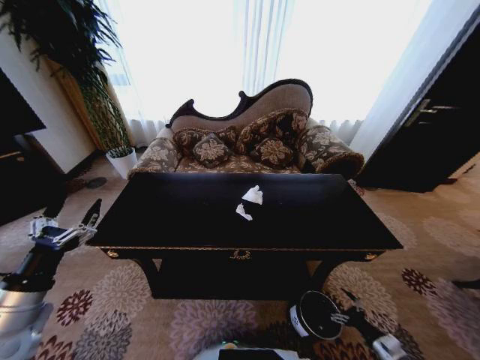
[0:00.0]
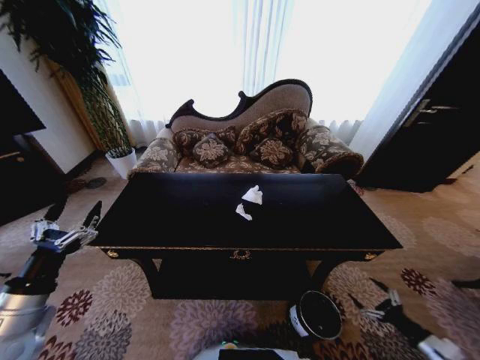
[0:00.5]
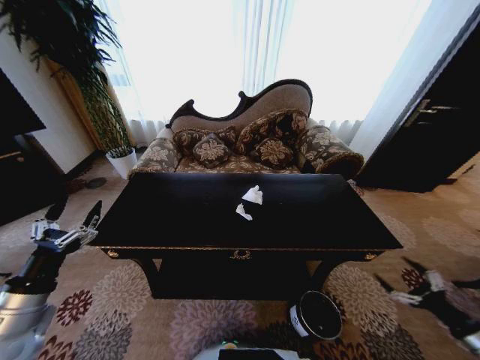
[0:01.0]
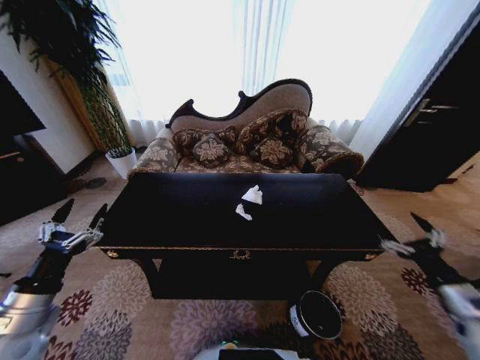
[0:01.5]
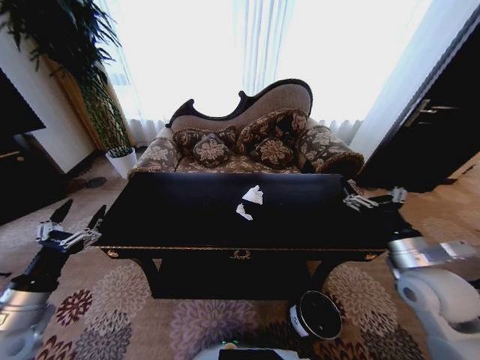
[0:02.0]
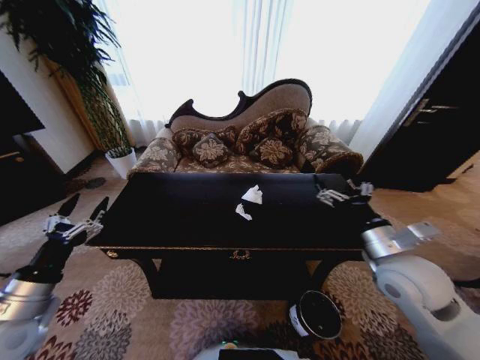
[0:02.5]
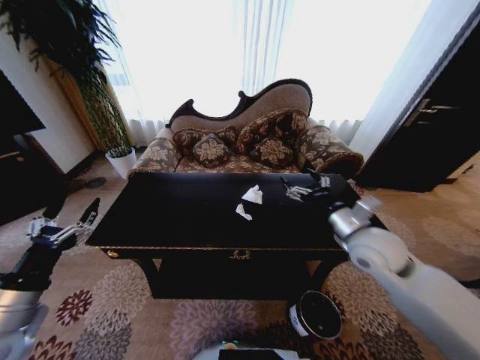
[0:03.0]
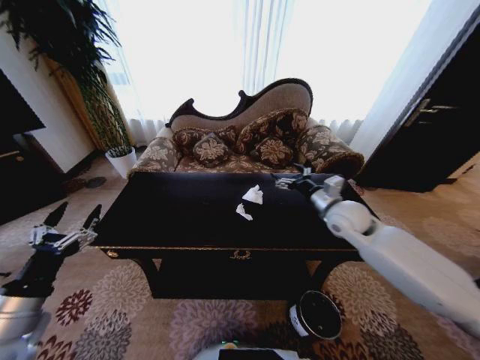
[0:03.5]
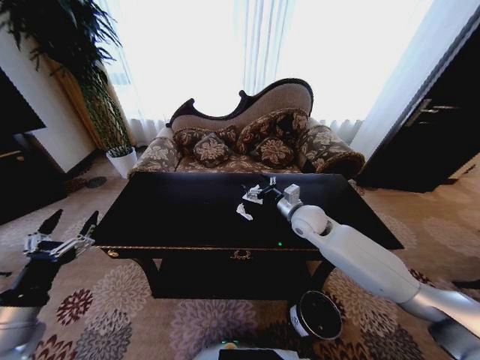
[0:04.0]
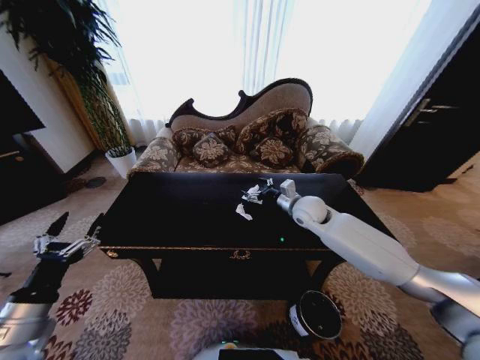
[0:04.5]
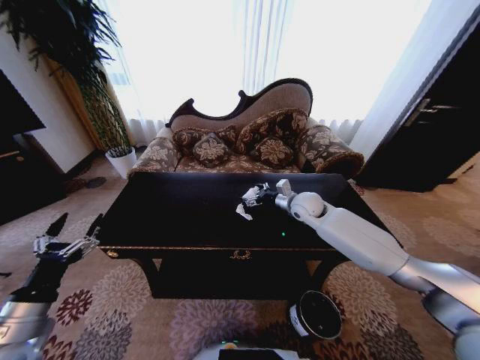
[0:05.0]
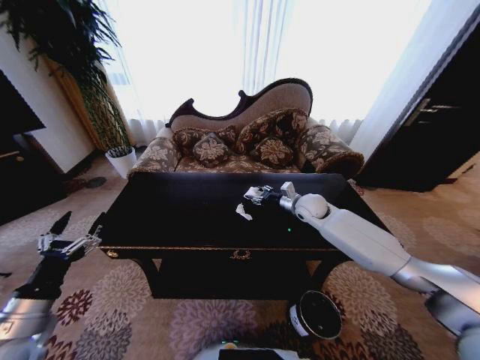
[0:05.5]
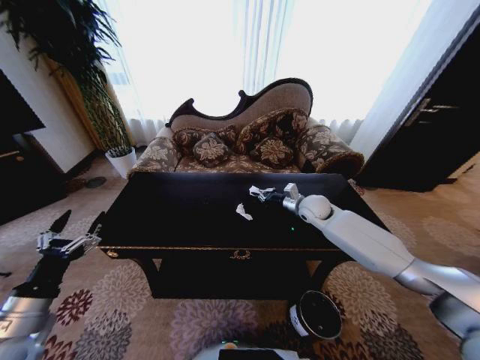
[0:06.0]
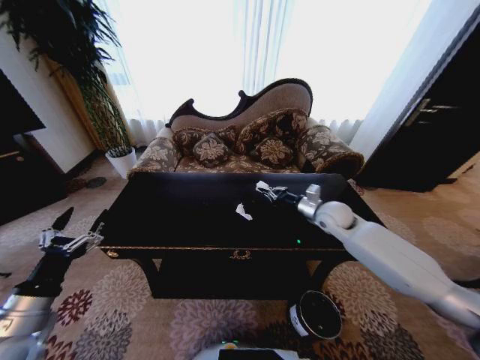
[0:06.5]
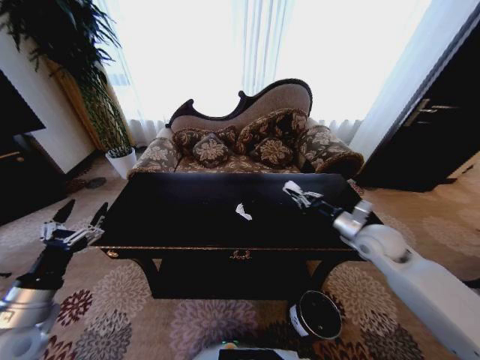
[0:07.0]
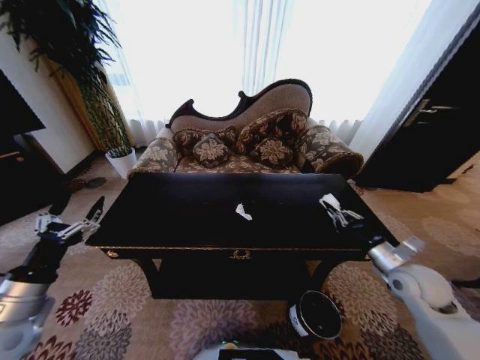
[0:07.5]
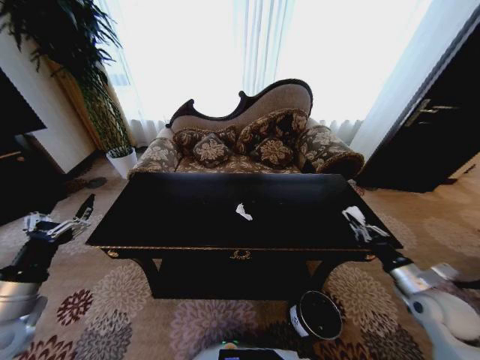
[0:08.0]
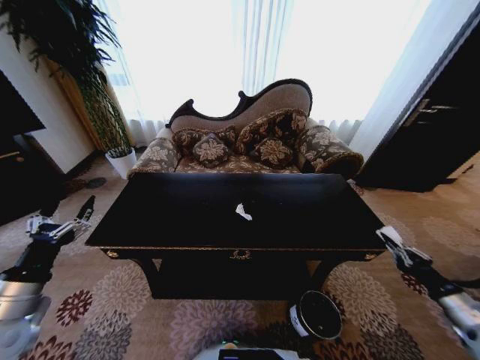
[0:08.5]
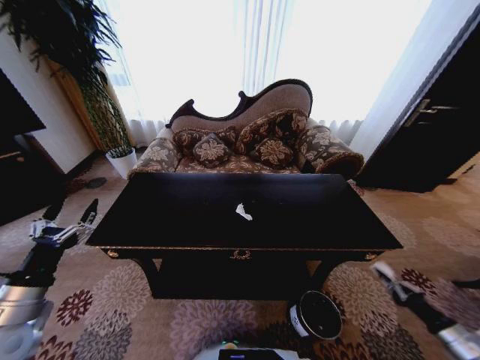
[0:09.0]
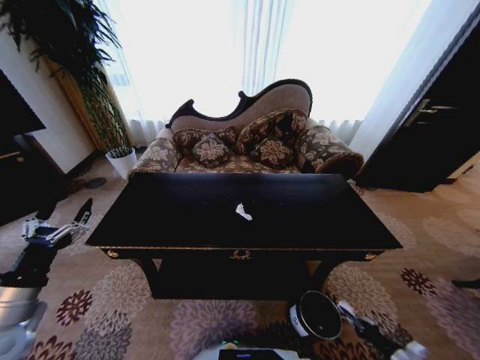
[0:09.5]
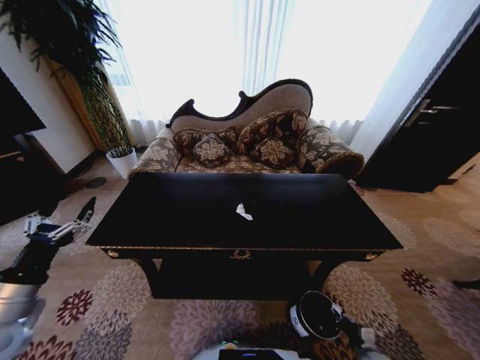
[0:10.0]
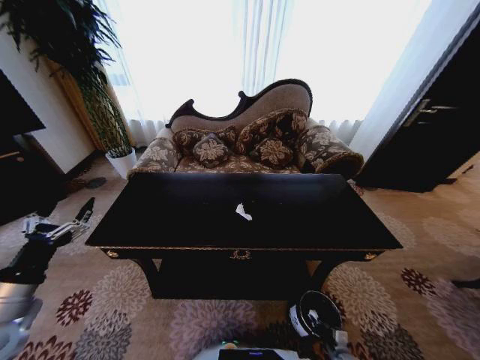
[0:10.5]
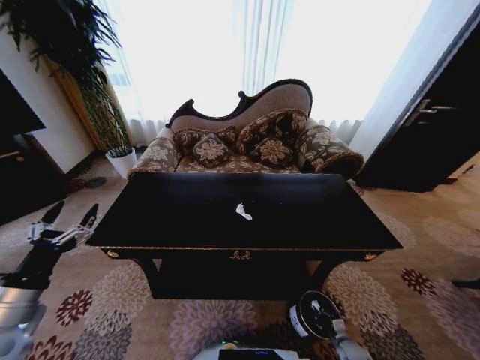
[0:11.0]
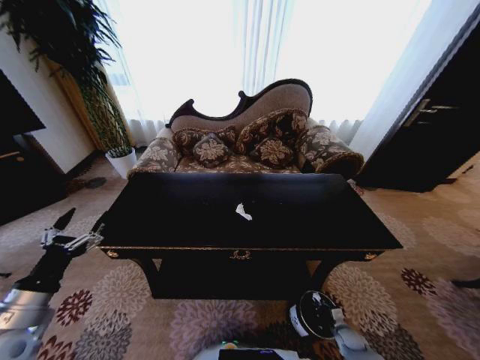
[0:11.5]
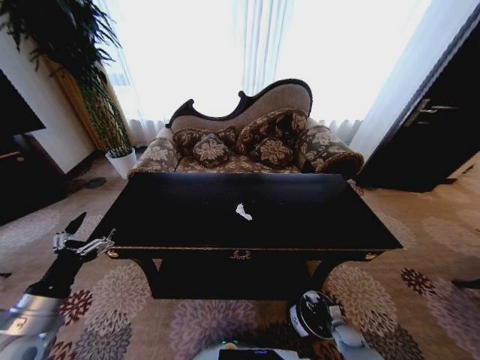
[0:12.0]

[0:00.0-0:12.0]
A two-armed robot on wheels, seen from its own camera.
Task of the whole recording: Move to the front of the table and place the trash on the table into the trash bin.
0:00.0 to 0:02.0: The right gripper shifts some 35 cm upward.
0:02.0 to 0:04.0: The right gripper goes roughly 25 cm forward and to the left.
0:04.0 to 0:06.0: The right gripper goes roughly 10 cm forward and to the right, and closes its fingers.
0:06.0 to 0:08.0: The right gripper shifts some 35 cm backward and to the right.
0:08.0 to 0:10.0: The right gripper moves downward, some 30 cm.
0:10.0 to 0:12.0: The right gripper goes about 10 cm forward, and opens.

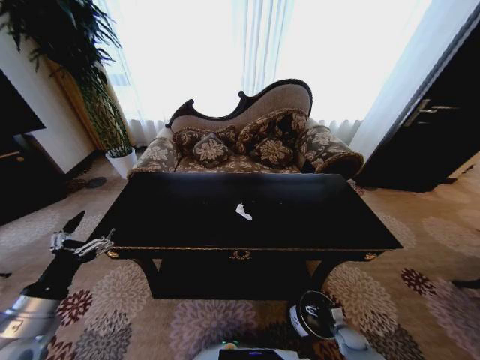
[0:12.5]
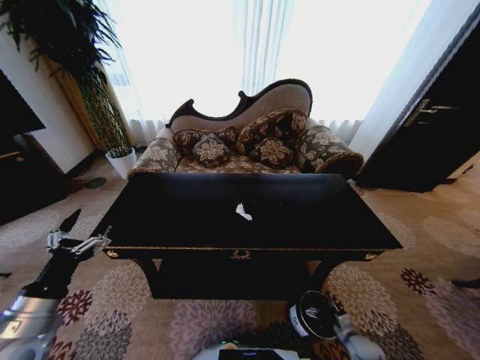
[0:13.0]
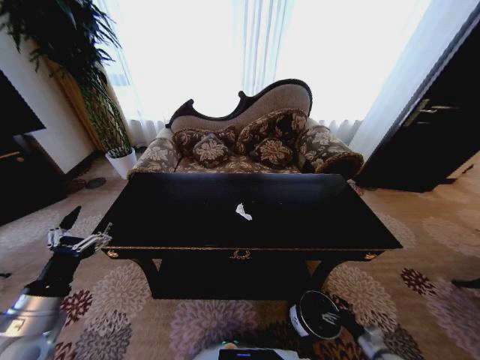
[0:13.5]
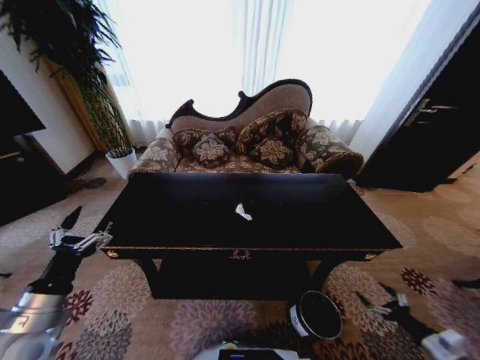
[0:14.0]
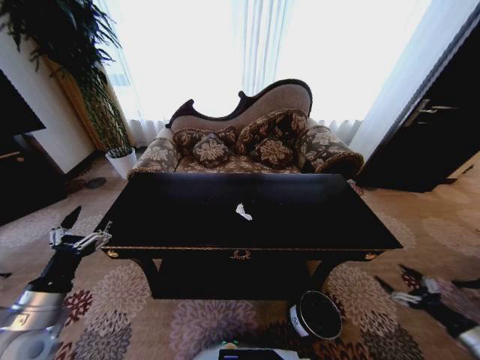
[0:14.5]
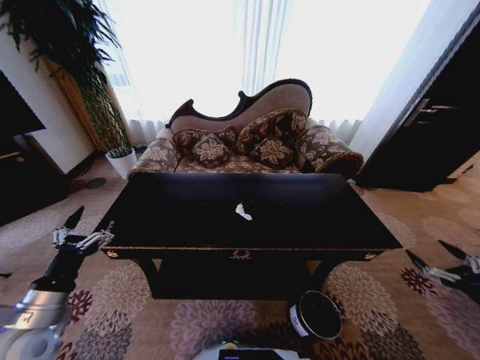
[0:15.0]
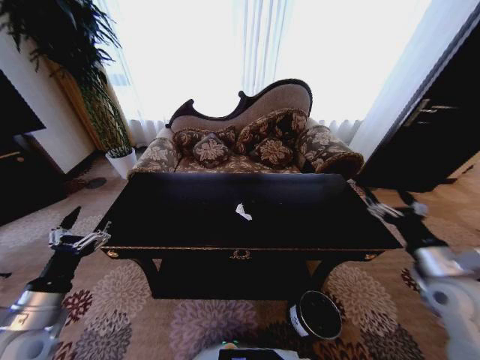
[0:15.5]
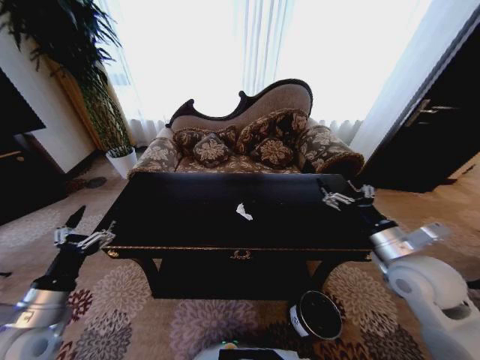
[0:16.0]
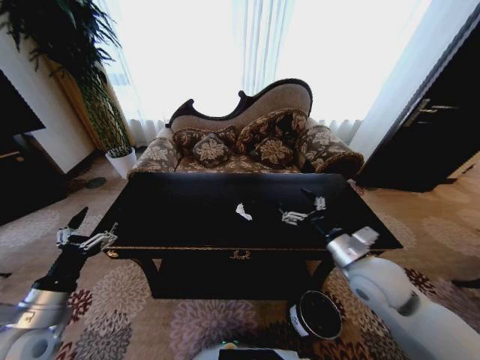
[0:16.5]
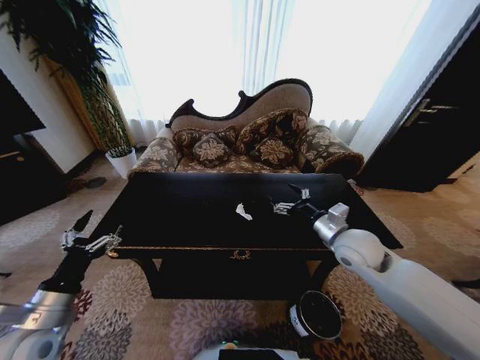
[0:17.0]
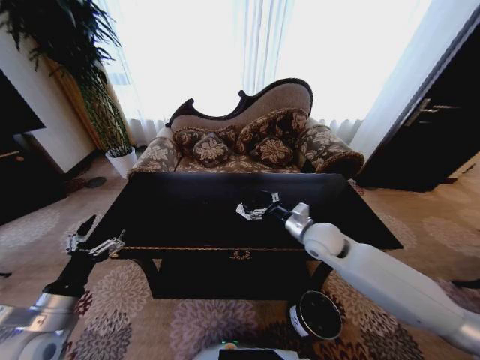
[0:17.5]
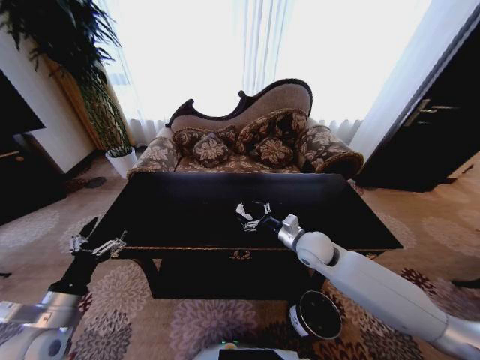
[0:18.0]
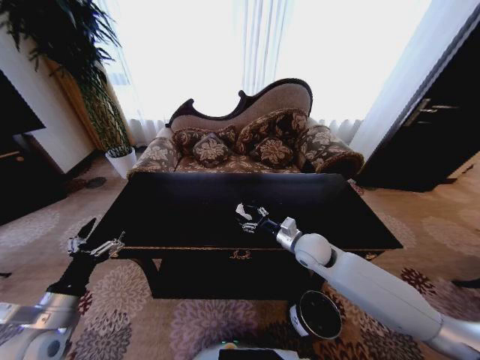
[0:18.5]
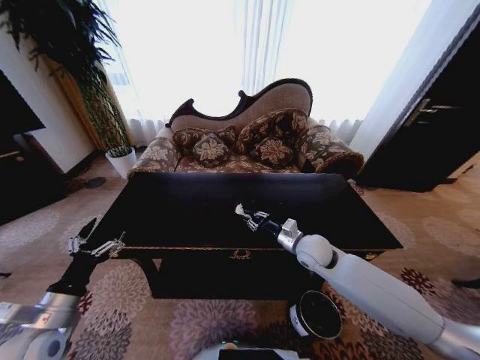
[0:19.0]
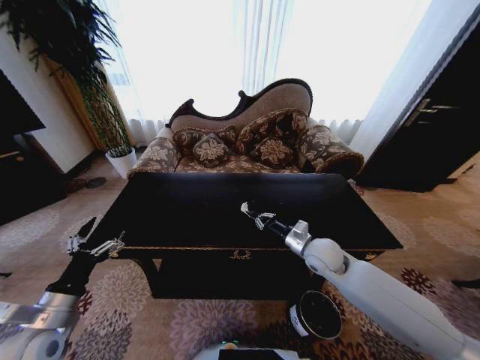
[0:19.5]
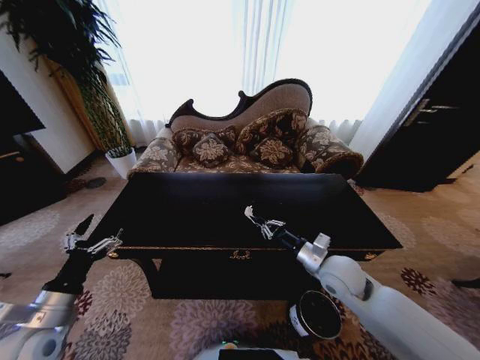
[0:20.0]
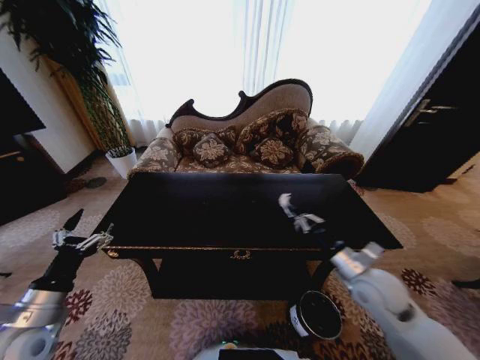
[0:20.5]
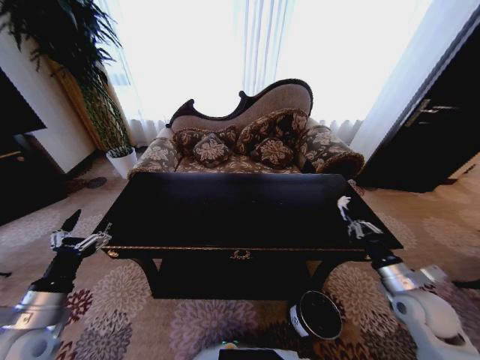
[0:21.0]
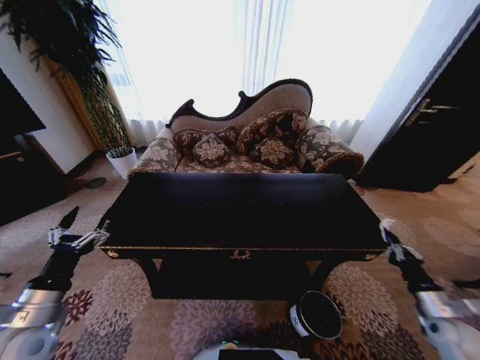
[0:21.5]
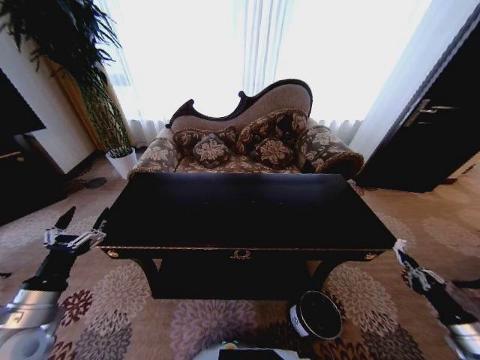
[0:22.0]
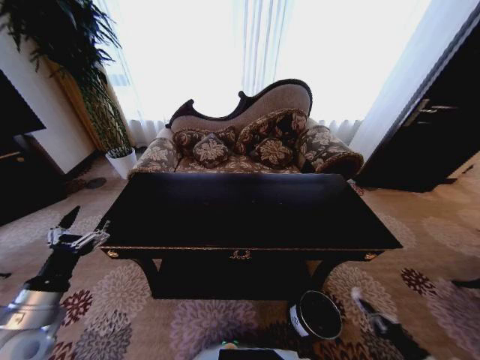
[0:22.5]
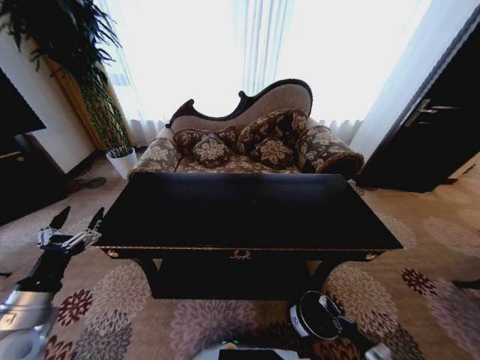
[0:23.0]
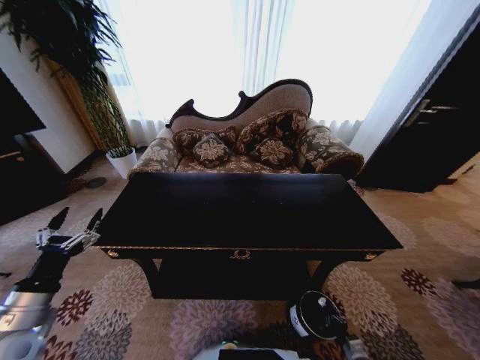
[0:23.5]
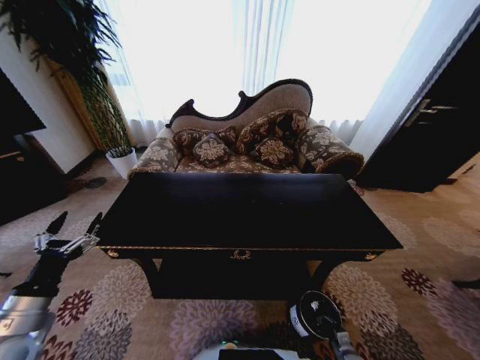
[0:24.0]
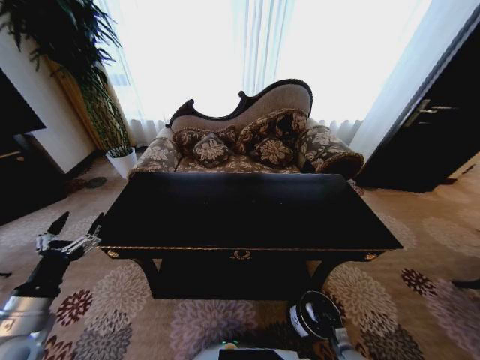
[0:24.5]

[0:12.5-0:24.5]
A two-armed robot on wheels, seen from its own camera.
Task of the whole recording: Move to the front of the table and place the trash on the table into the trash bin.
0:12.5 to 0:14.5: The right gripper goes about 35 cm upward and to the right.
0:14.5 to 0:16.5: The right gripper is displaced to the left, upward and forward by roughly 40 cm.
0:16.5 to 0:18.5: The right gripper goes some 15 cm forward, downward and to the left.
0:18.5 to 0:20.5: The right gripper moves backward and to the right, some 15 cm, and closes.
0:20.5 to 0:22.5: The right gripper goes roughly 40 cm to the right, downward and backward.
0:22.5 to 0:24.5: The right gripper goes some 25 cm to the left, downward and forward.

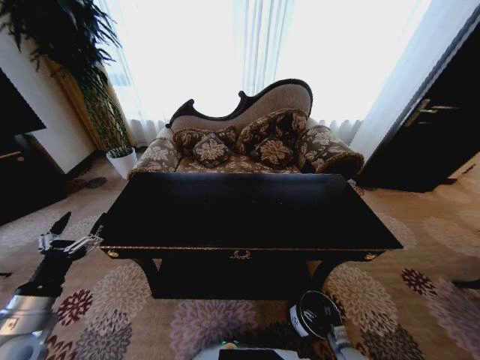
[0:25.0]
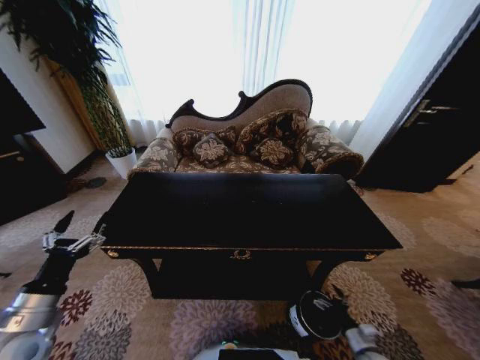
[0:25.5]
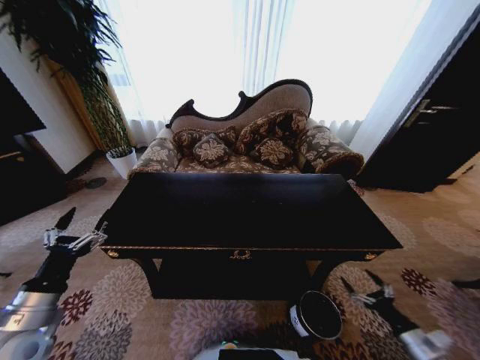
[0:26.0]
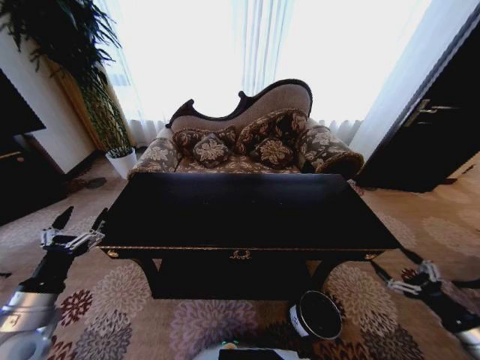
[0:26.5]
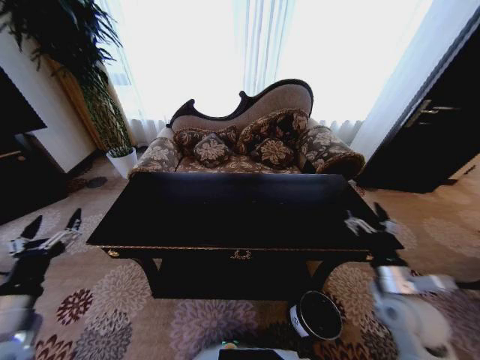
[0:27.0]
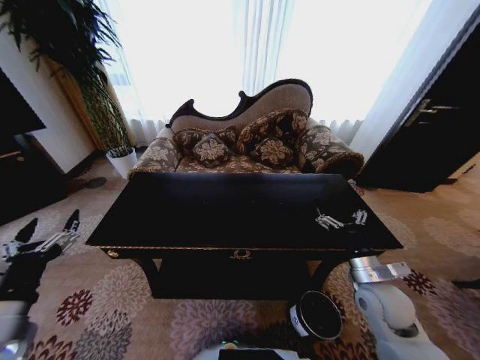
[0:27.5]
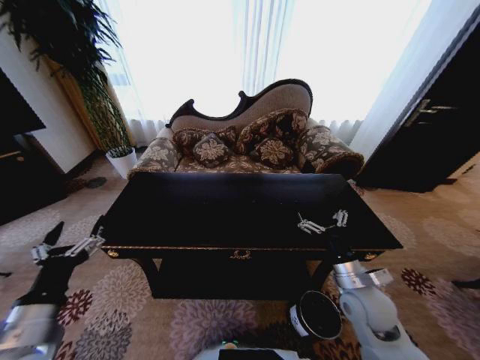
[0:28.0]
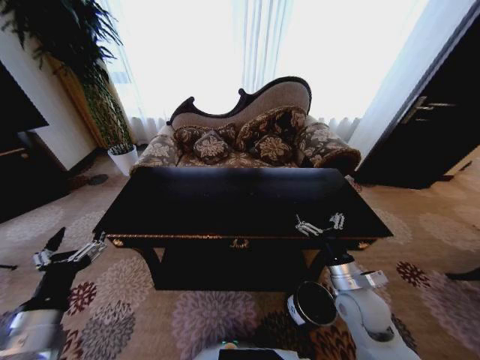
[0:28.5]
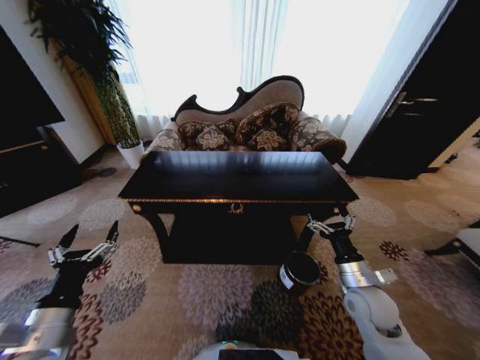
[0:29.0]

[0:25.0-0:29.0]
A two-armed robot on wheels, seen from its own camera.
Task of the whole recording: Move to the front of the table and place the trash on the table into the trash bin.
0:25.0 to 0:27.0: The right gripper moves upward, approximately 35 cm.
0:27.0 to 0:29.0: The right gripper ends up approximately 5 cm from where it was, while the left gripper shifts about 5 cm to the right.
